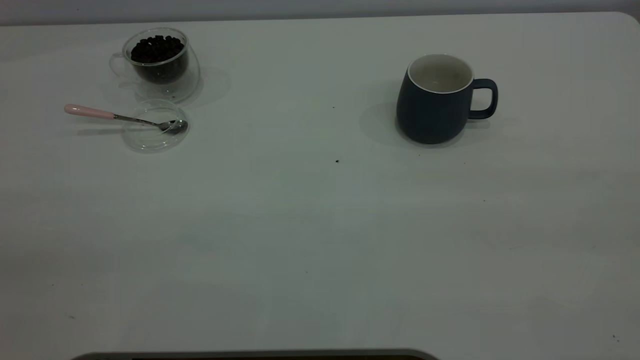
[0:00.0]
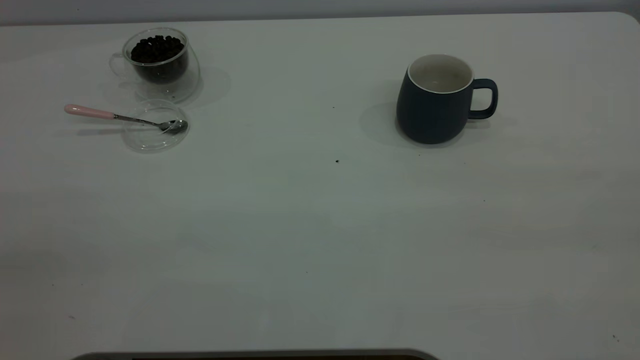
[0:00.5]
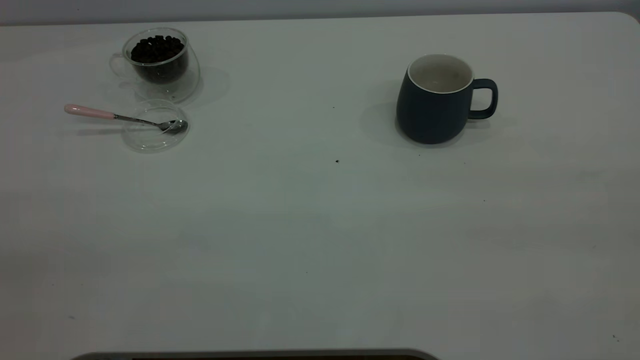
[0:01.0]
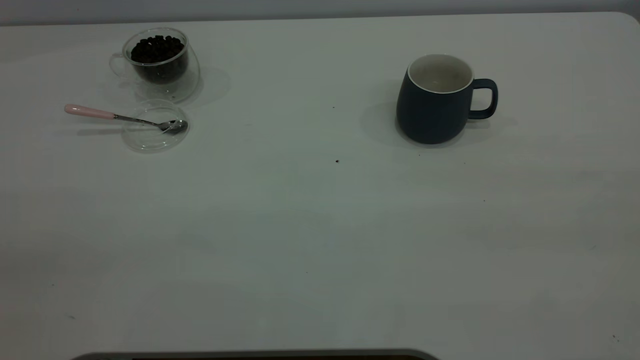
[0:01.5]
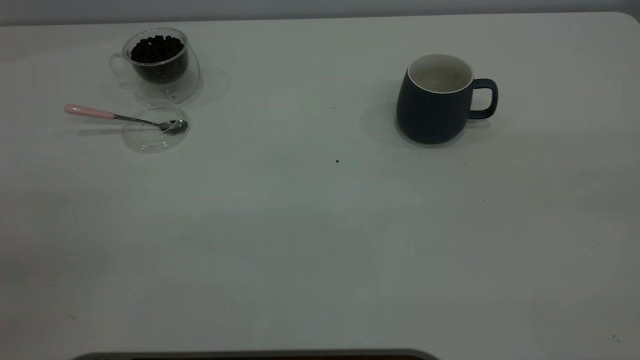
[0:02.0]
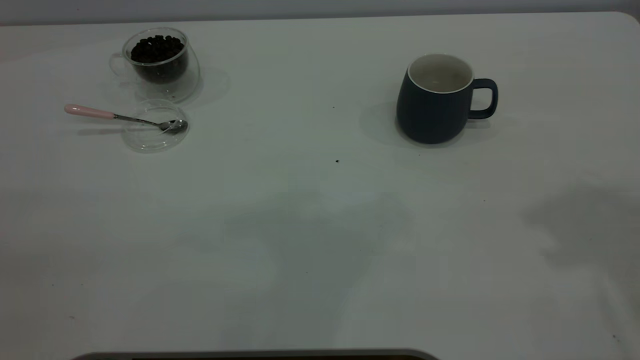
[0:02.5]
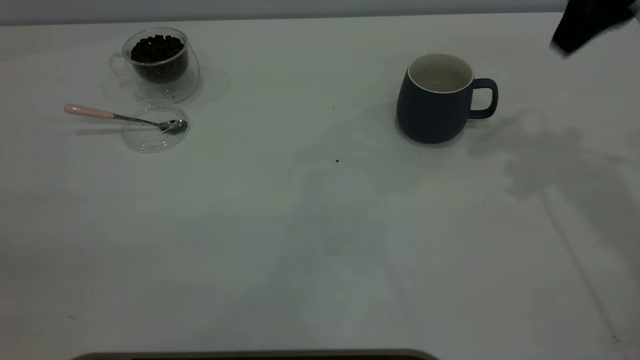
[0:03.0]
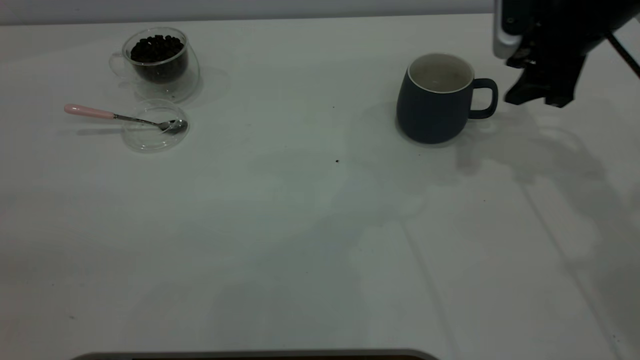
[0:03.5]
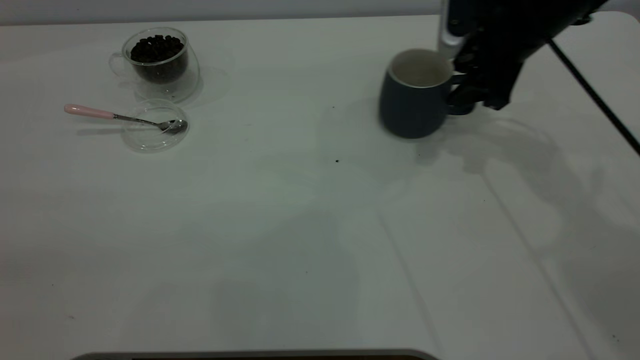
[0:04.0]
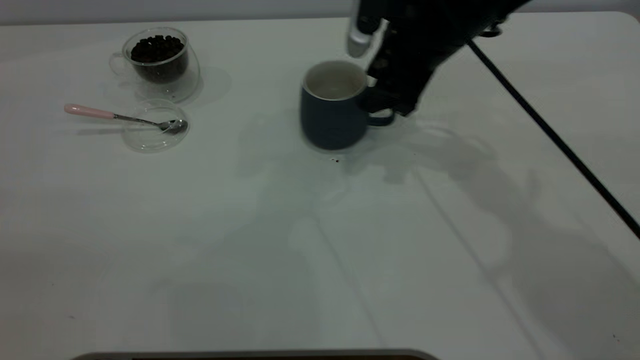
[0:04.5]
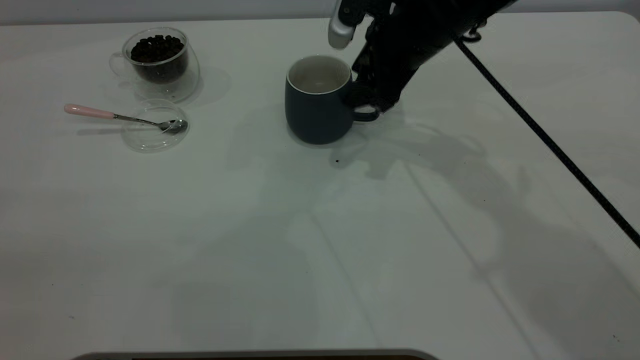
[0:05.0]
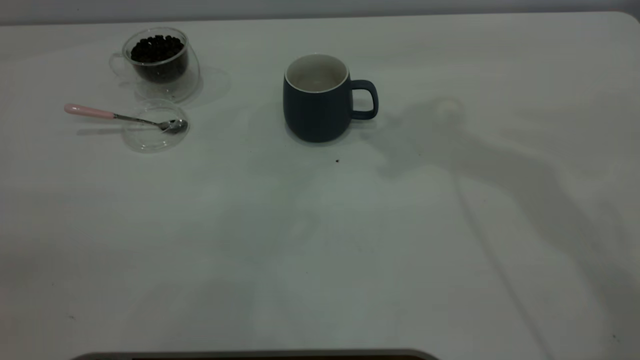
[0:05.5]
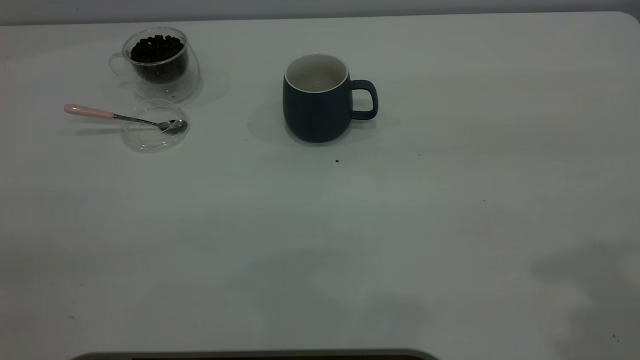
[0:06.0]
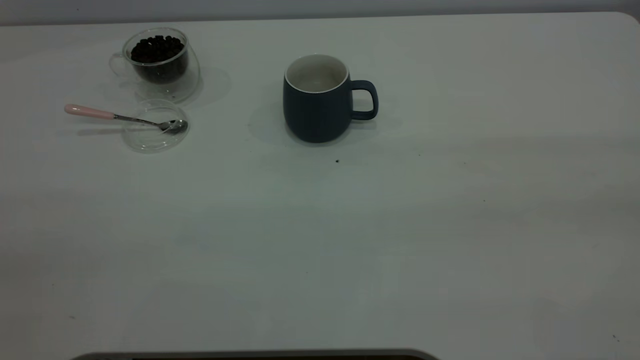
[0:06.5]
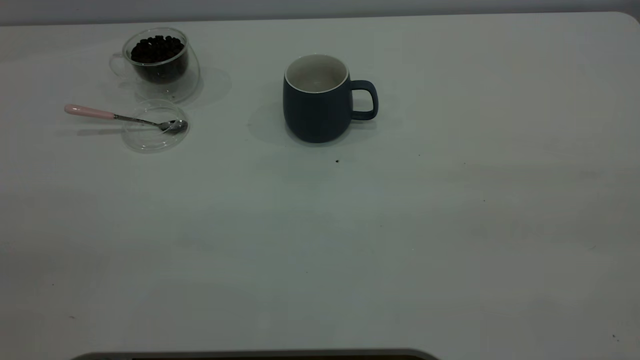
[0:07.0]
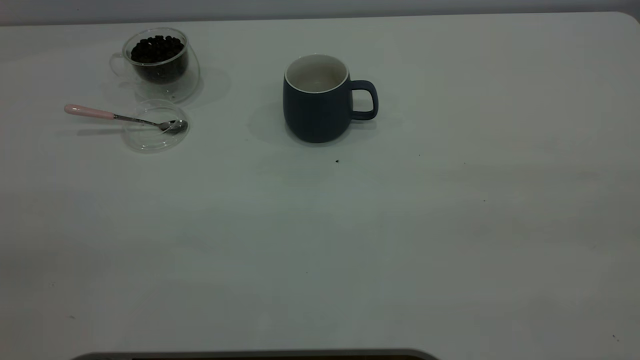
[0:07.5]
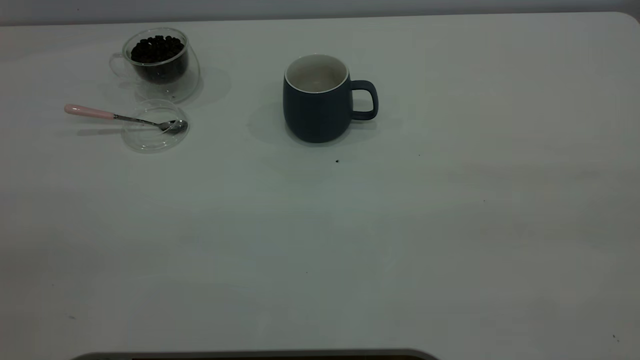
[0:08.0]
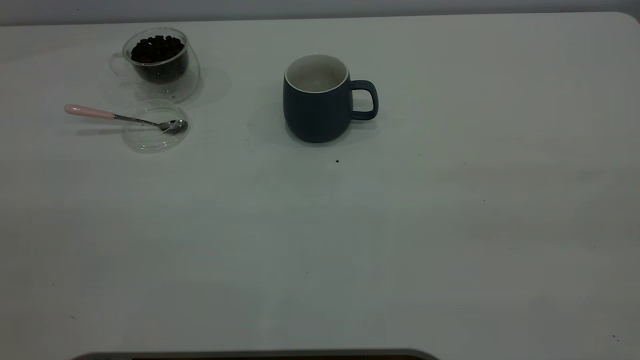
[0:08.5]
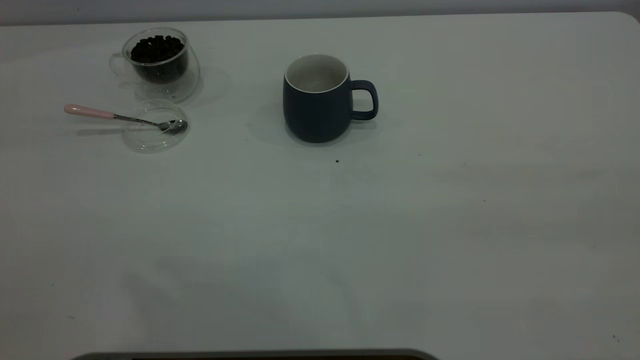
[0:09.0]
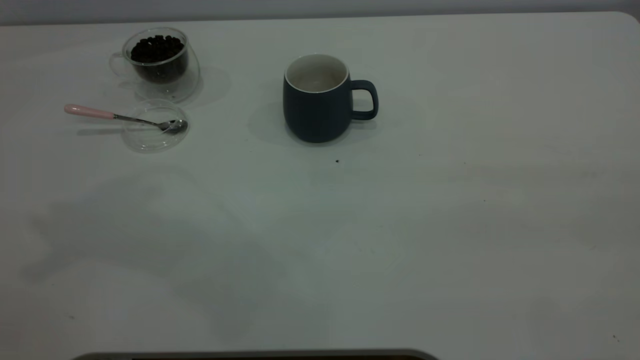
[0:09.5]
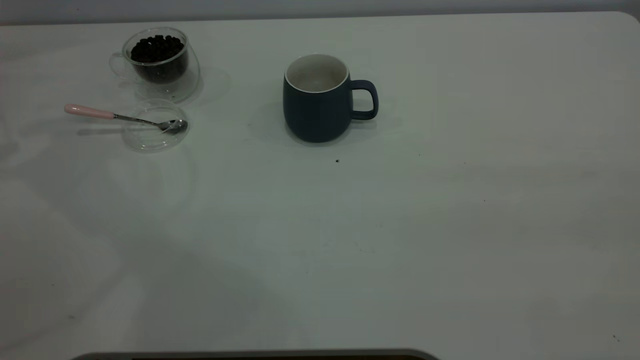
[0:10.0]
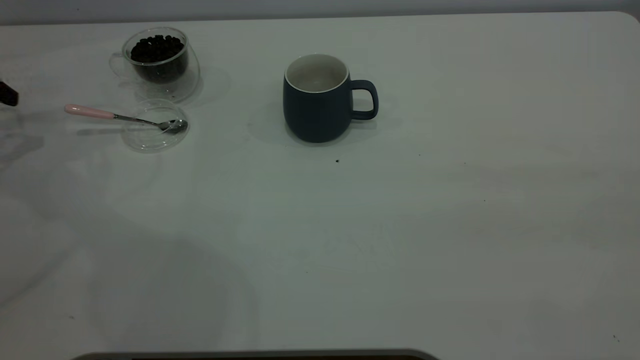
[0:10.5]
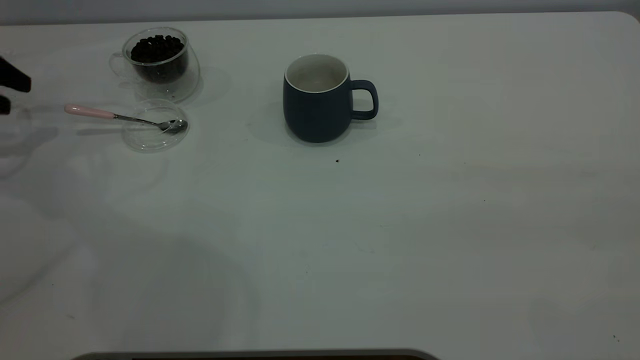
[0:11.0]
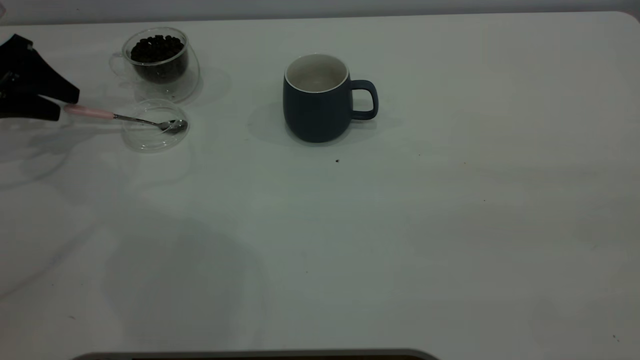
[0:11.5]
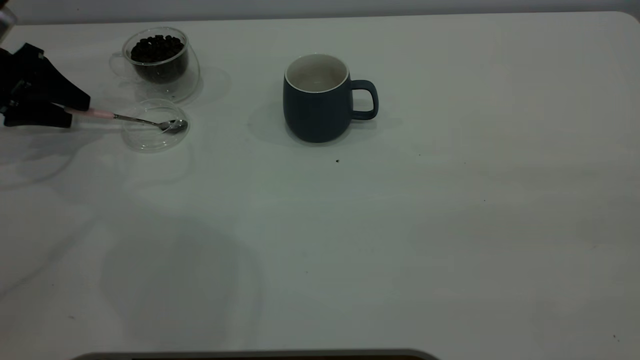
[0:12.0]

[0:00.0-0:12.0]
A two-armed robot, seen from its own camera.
Task of the whole recording: the right gripper place the grey cup in the center of the table, the left gripper take the pink spoon from the cup lid and scoop out the coffee beans from the coffee cup and put them into the grey cup, the left gripper put the spoon back into the cup lid.
Step, 0:00.0 to 0:05.0: Move the cup to the center of view.
0:02.0 to 0:04.0: The right gripper shifts roughly 40 cm forward and downward.
0:04.0 to 0:06.0: The right gripper moves backward and upward, approximately 35 cm.
0:10.0 to 0:12.0: The left gripper is displaced downward and to the right by about 15 cm, and opens up.

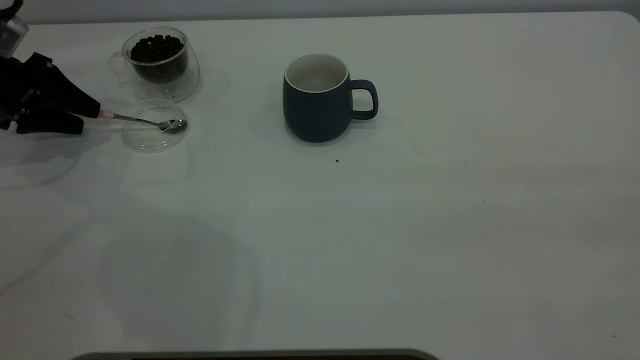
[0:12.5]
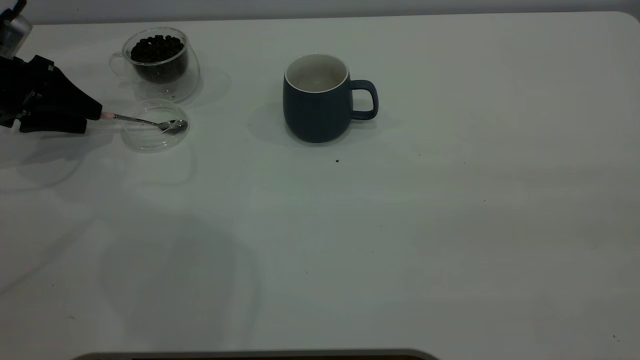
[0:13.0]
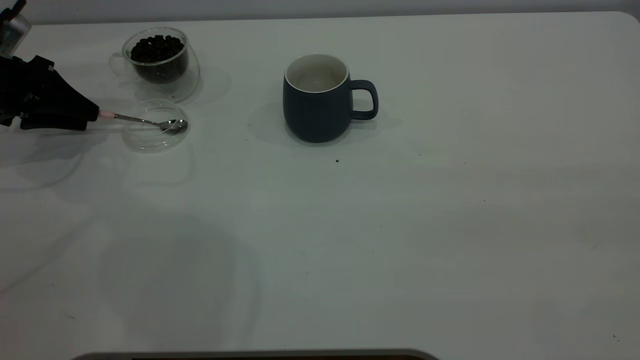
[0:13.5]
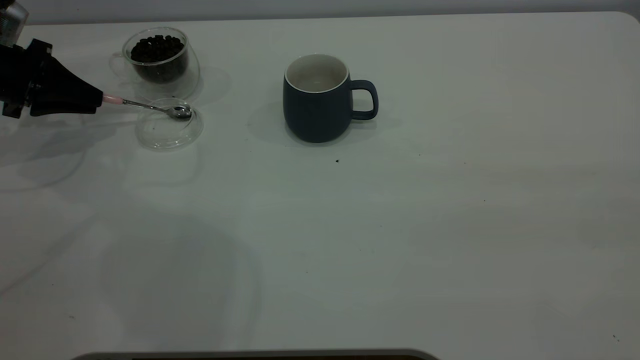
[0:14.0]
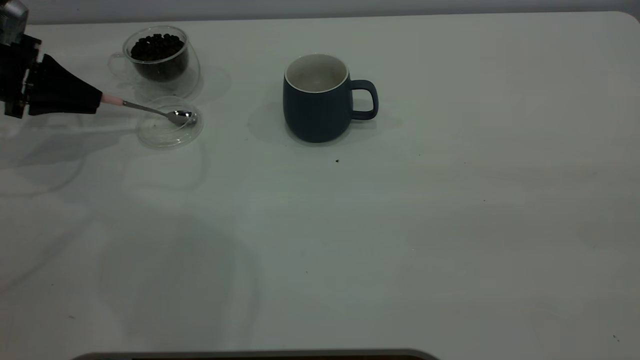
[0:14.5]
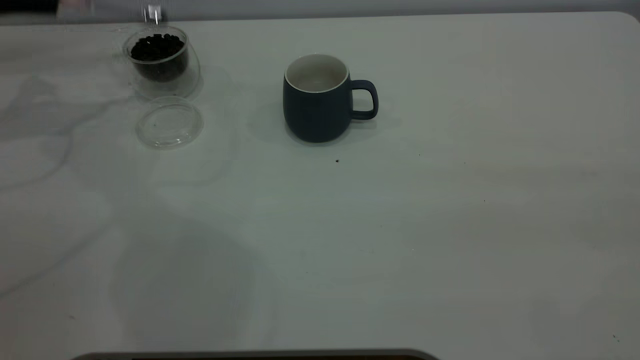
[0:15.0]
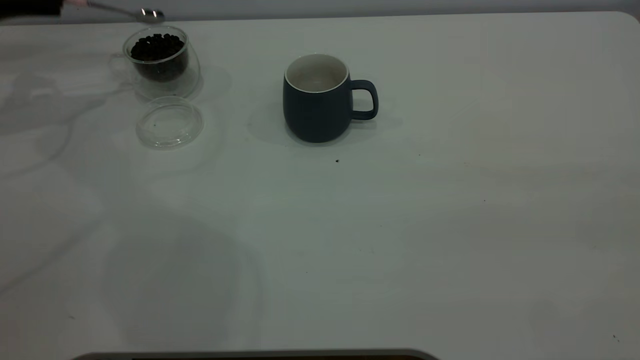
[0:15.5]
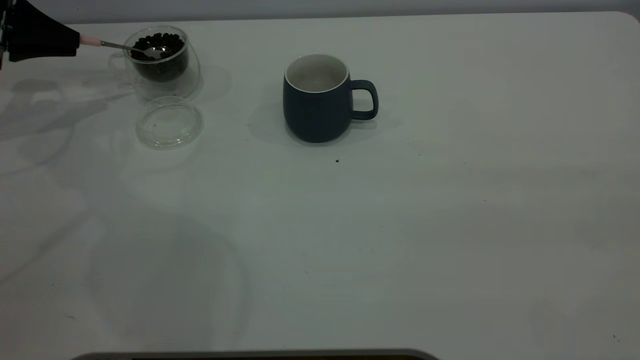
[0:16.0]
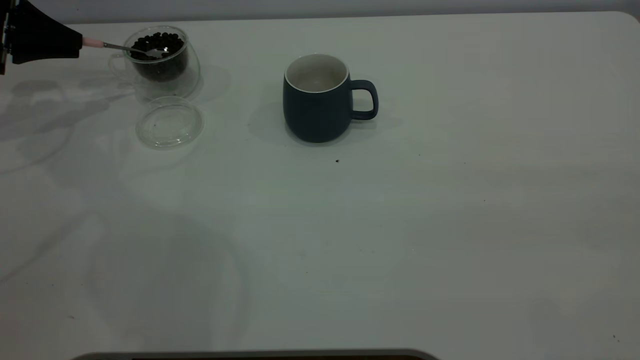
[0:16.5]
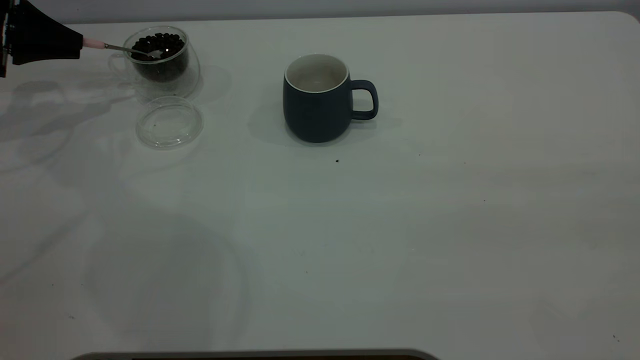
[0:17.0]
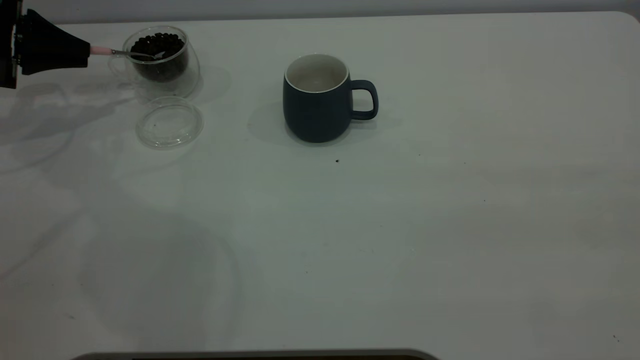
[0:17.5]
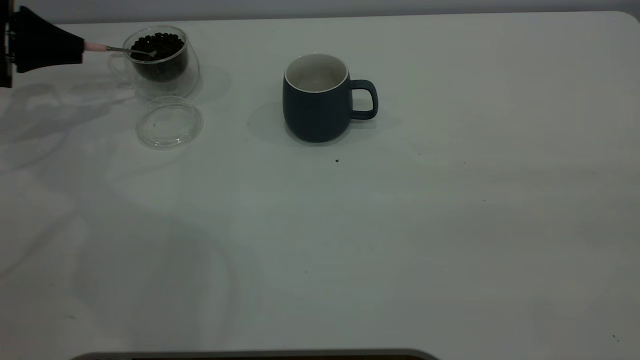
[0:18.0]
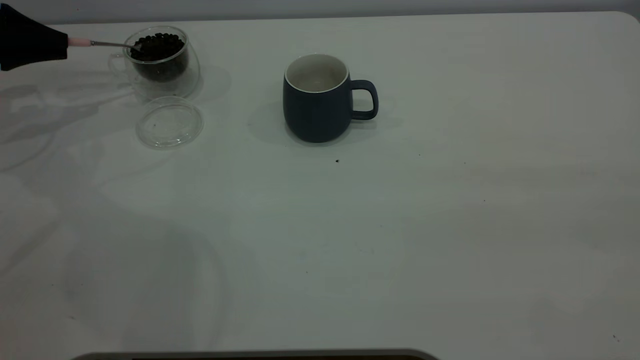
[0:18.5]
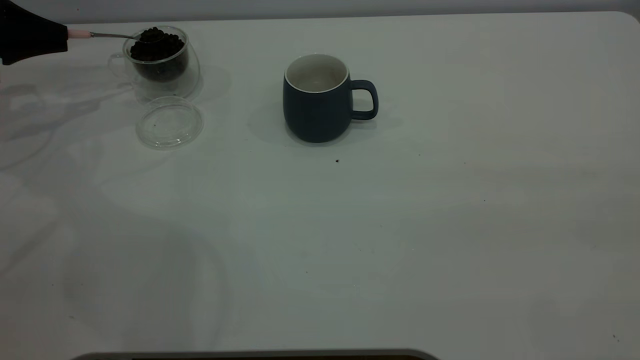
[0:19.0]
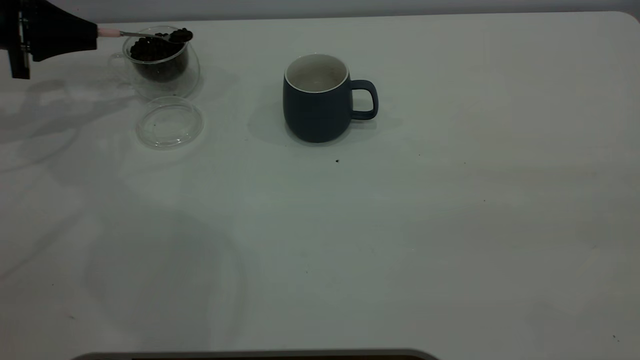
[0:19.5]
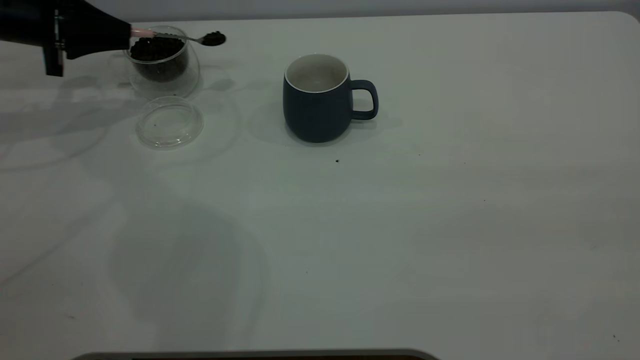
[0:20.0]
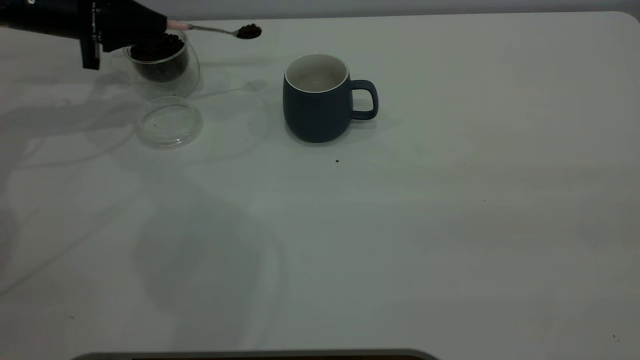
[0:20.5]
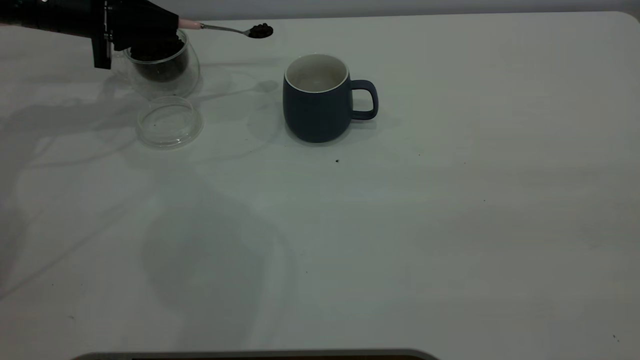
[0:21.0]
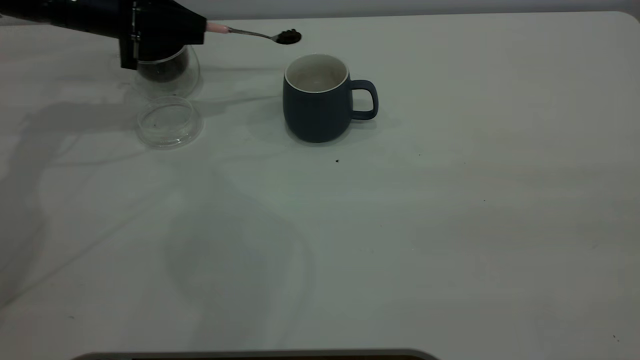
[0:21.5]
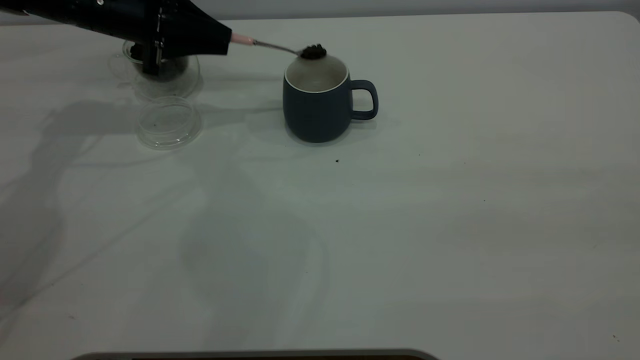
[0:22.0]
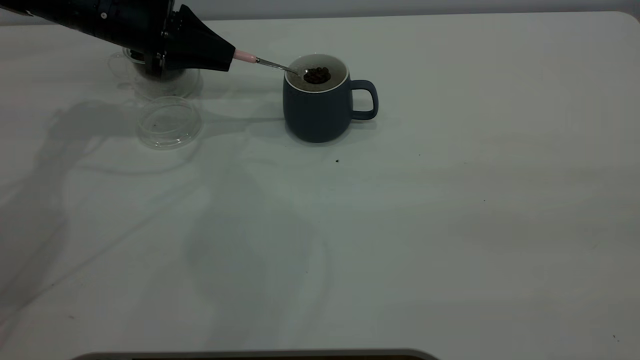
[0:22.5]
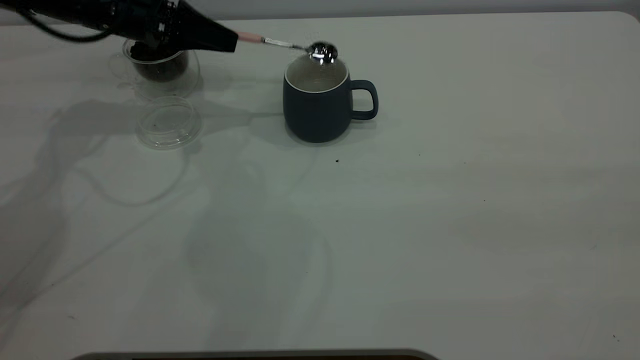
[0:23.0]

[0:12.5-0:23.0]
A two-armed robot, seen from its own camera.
Task of the whole recording: the right gripper place the grey cup in the center of the table, the left gripper take the pink spoon from the cup lid and scoop out the coffee beans from the coffee cup and put them into the grey cup, the left gripper put the spoon back into the cup lid.
Step, 0:12.5 to 0:14.5: Pick up the spoon.
0:12.5 to 0:14.5: The left gripper closes its fingers.
0:14.5 to 0:16.5: The left gripper travels upward and back again, some 10 cm each way.
0:16.5 to 0:19.0: There are only small adjustments of the grippers.
0:19.0 to 0:21.0: The left gripper goes about 15 cm to the right.
0:21.0 to 0:23.0: The left gripper heads to the right, covering approximately 5 cm.
